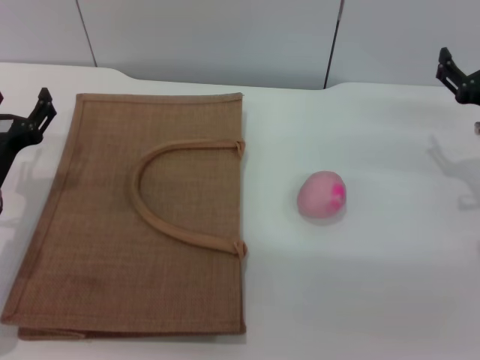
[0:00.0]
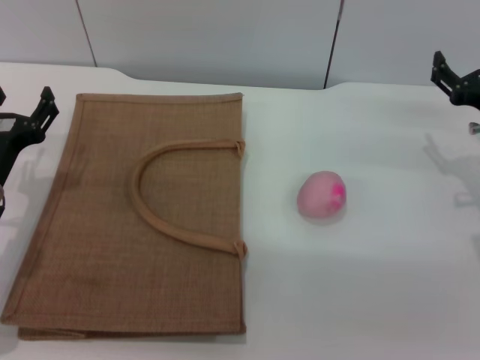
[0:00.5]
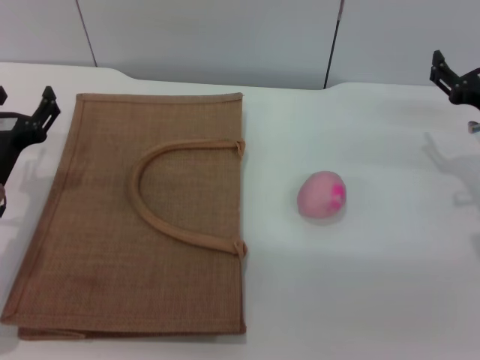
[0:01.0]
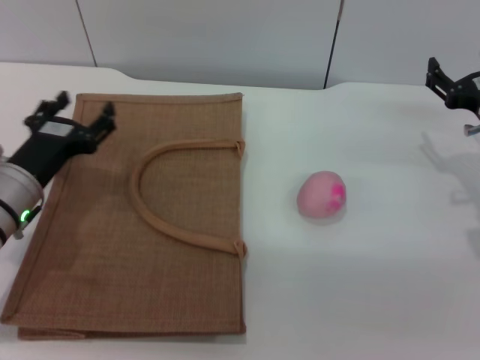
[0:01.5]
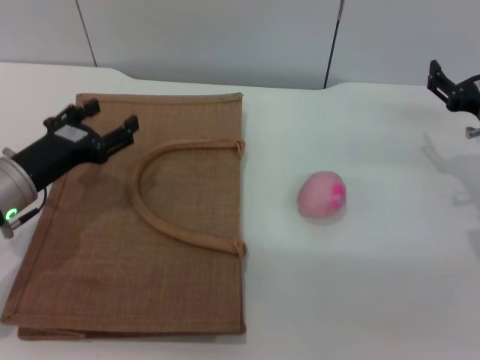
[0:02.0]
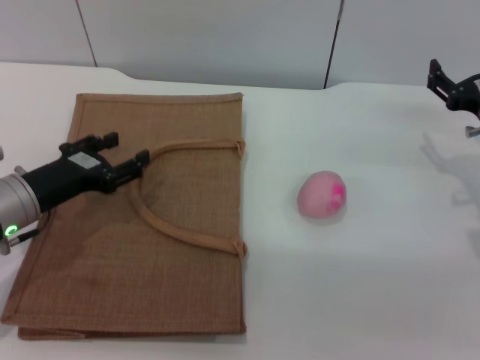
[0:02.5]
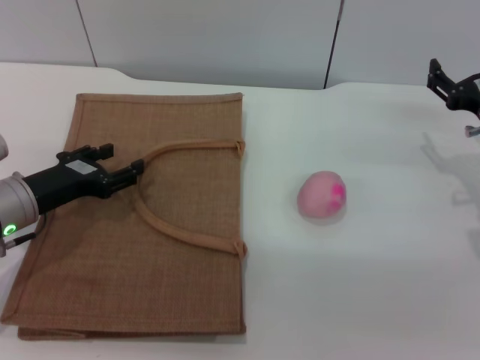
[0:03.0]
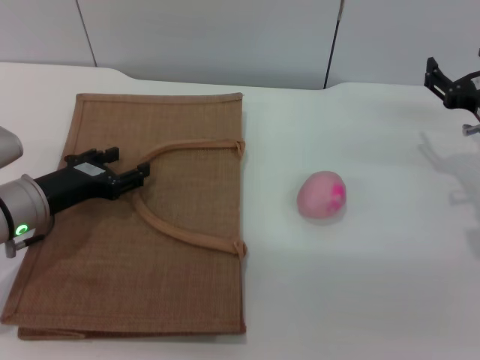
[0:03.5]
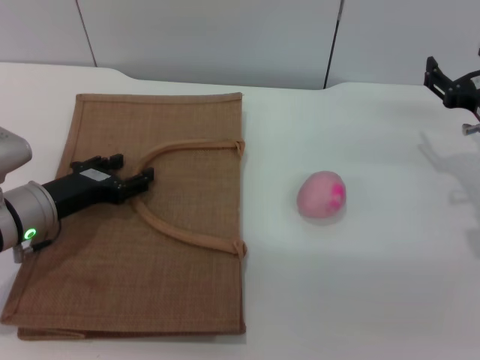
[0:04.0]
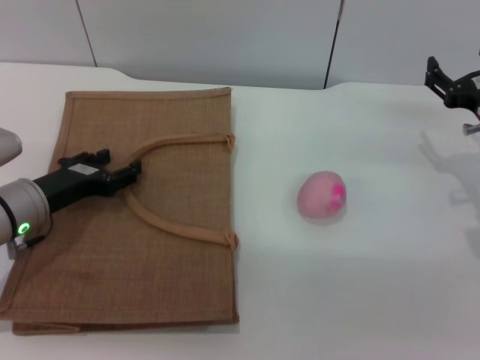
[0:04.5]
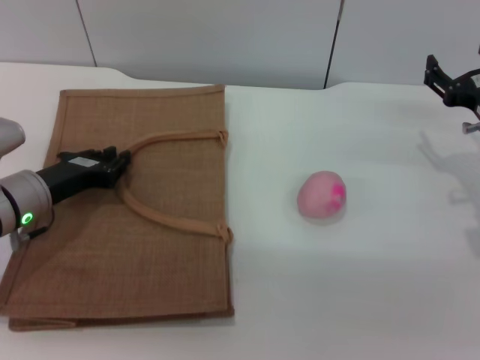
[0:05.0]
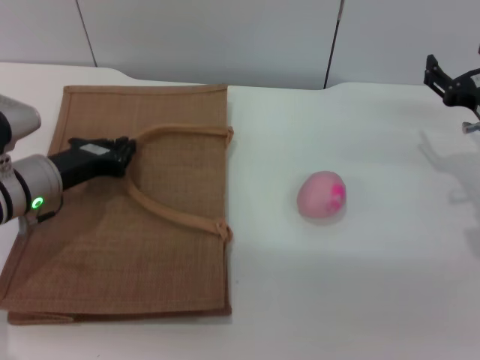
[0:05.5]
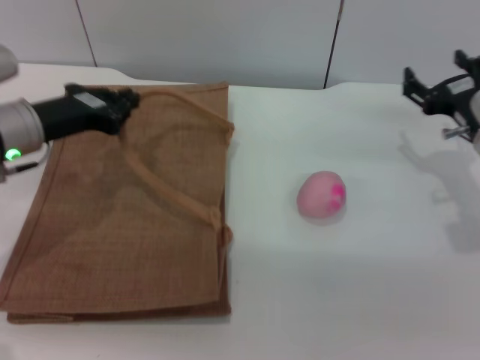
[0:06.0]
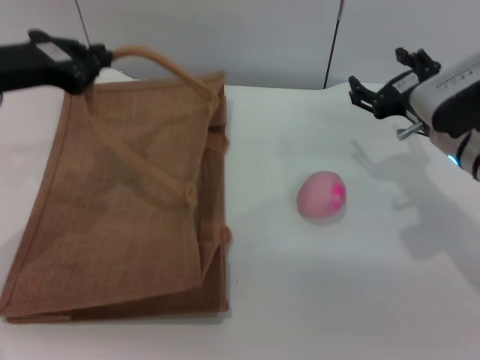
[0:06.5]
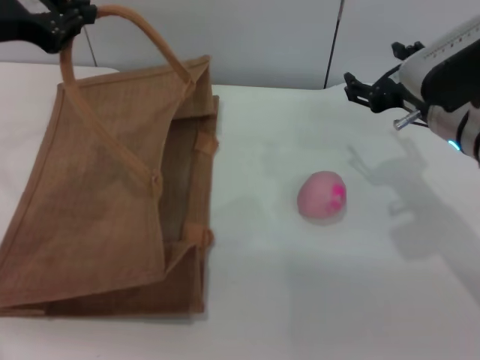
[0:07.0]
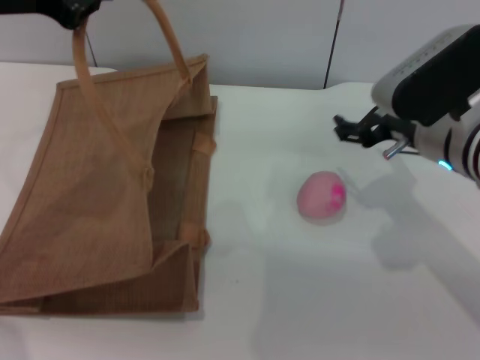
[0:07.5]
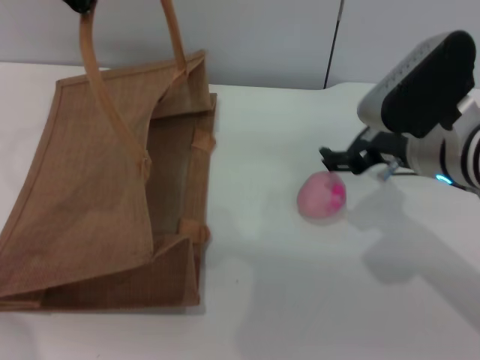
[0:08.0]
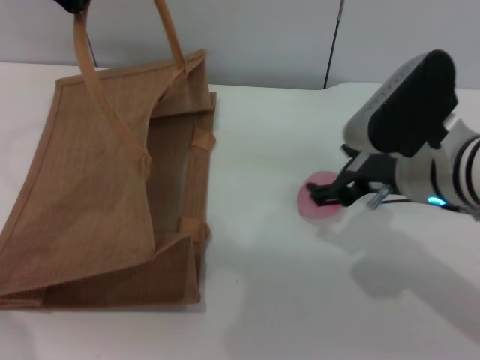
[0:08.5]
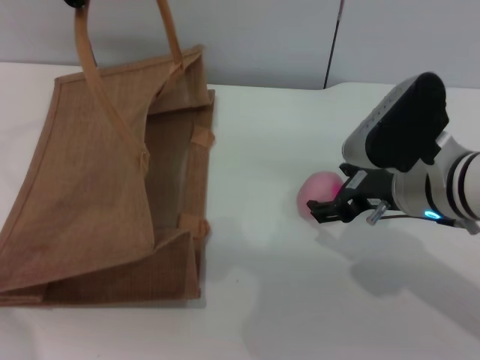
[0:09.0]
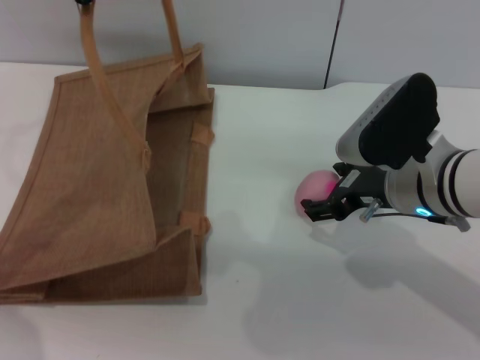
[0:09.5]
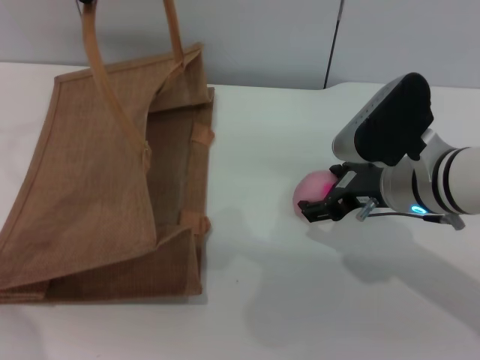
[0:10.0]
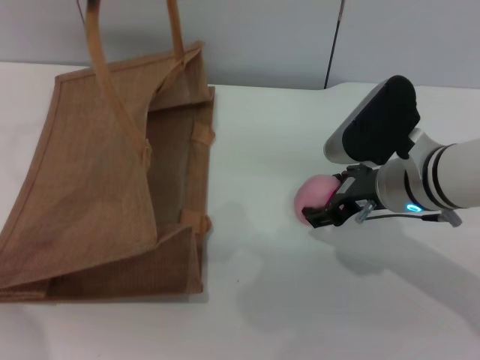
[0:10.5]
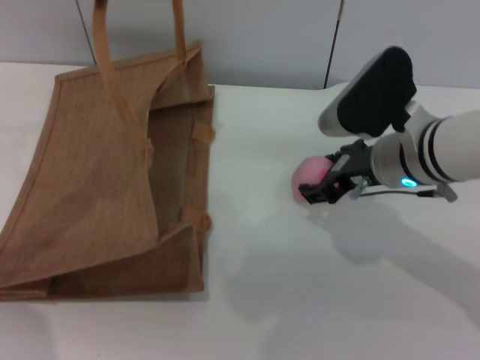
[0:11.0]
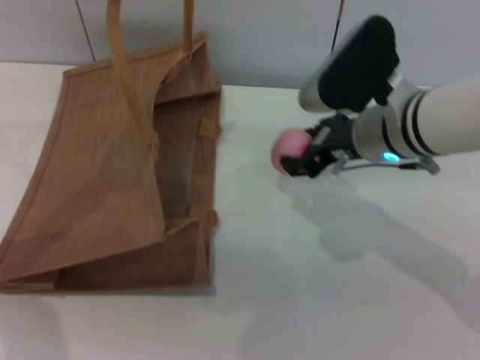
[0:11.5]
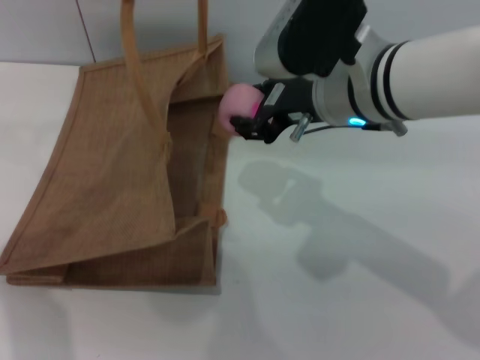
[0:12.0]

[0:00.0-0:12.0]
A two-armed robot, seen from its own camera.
Task of the whole recording: pick up the peach from the table and place it in the brown handbag.
Step, 0:00.0 to 0:06.0: Lift the woven bag with the left gripper to open it.
Step, 0:06.5 to 0:11.0: Pick up the peach with the right gripper.
0:02.0 to 0:04.0: The grippers make only small movements.
0:04.0 to 0:06.0: The left gripper shifts approximately 10 cm upward, and closes up.
0:06.0 to 0:08.0: The left gripper travels upward by about 15 cm. The right gripper moves to the left and upward, approximately 10 cm.
0:08.0 to 0:10.0: There are only small adjustments of the grippers.
0:10.0 to 0:12.0: The right gripper goes about 10 cm upward and to the left, and closes up.

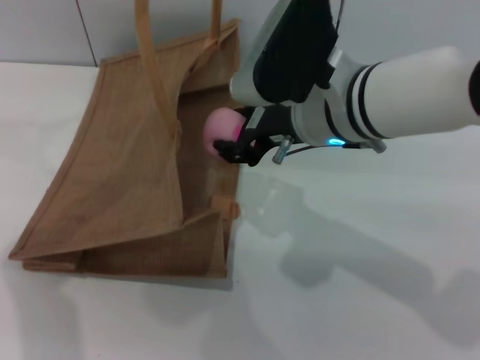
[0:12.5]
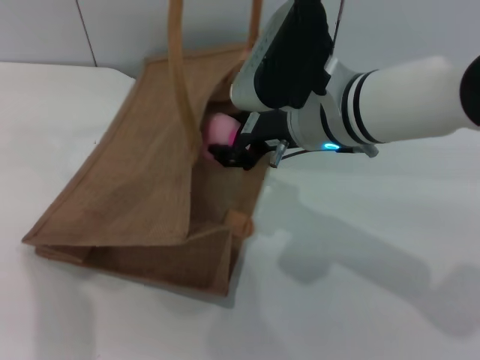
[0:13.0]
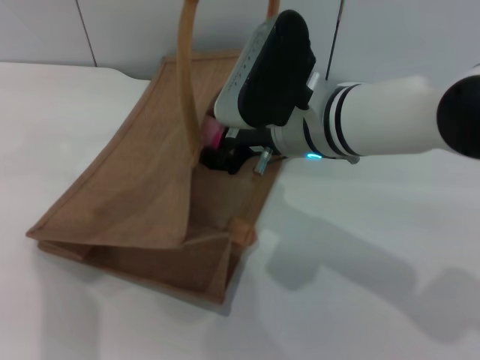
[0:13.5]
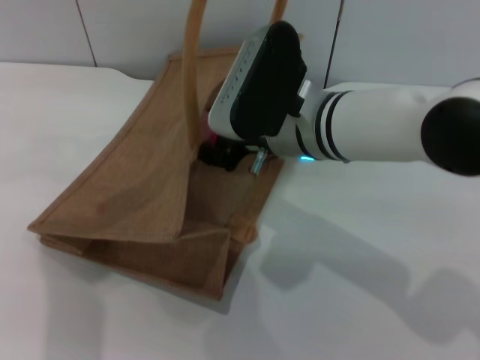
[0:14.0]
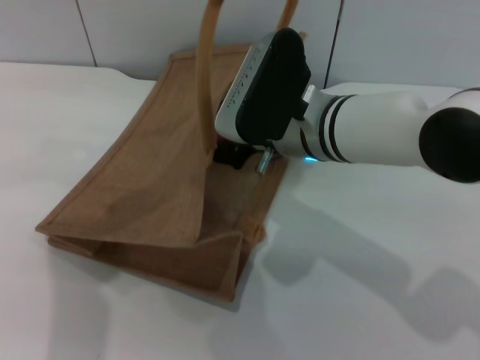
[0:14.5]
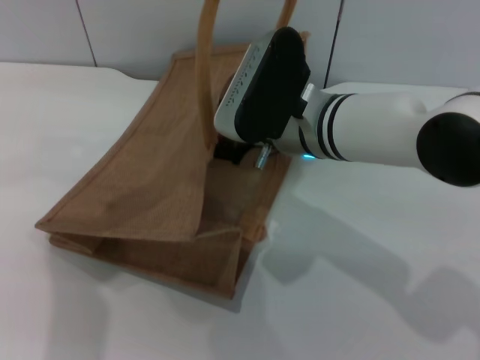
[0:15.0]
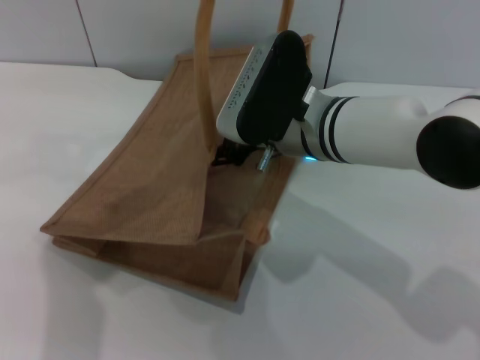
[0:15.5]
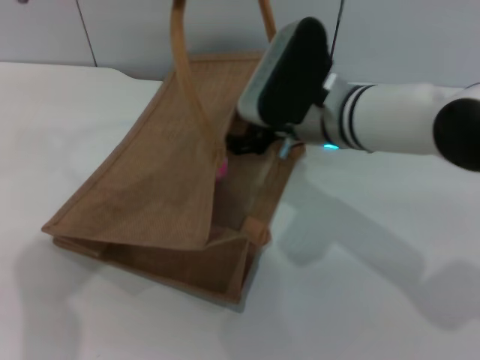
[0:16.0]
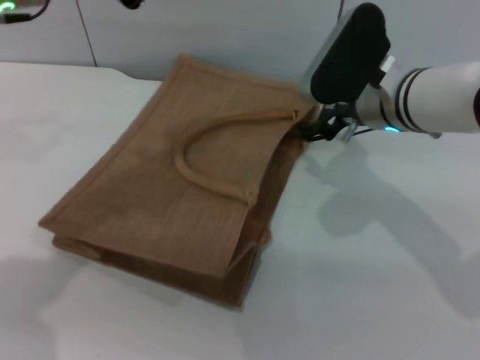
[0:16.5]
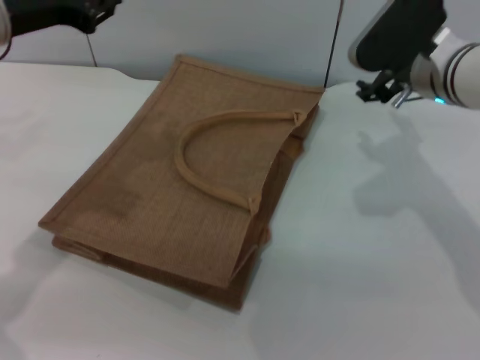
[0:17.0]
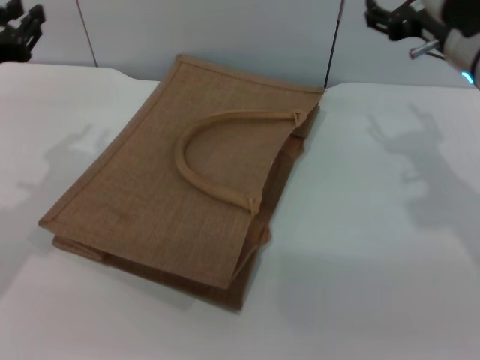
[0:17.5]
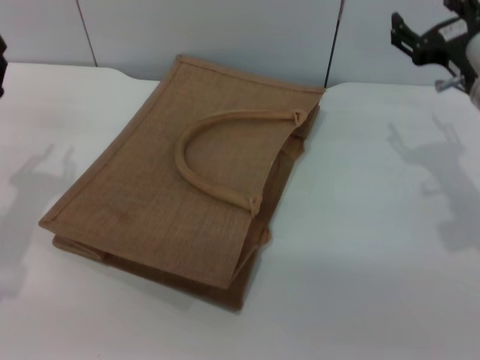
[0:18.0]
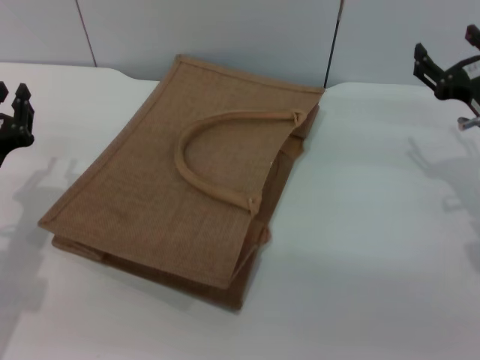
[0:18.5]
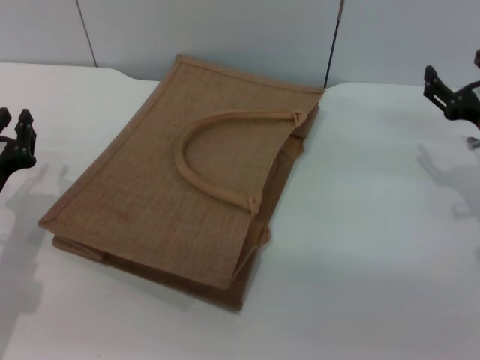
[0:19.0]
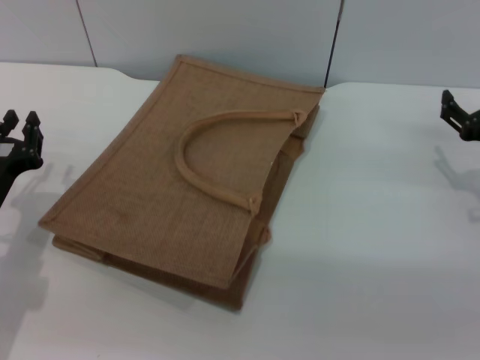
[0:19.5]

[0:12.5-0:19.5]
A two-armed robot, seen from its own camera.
Task of the whole recording: pick up the peach from the table and place it in the brown handbag.
Step, 0:12.5 to 0:16.0: Place the peach into the woven bag with the right gripper.
0:12.5 to 0:14.5: The left gripper travels to the right by about 5 cm.
0:14.5 to 0:16.0: The right gripper opens its fingers.
0:16.0 to 0:17.5: The left gripper is displaced downward and to the left by approximately 20 cm. The right gripper is displaced to the right by some 15 cm.
0:17.5 to 0:19.5: The right gripper moves downward, to the right and backward, roughly 15 cm; the left gripper travels downward and backward by approximately 15 cm.
